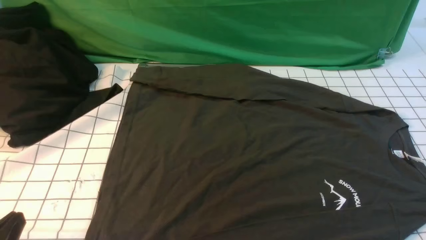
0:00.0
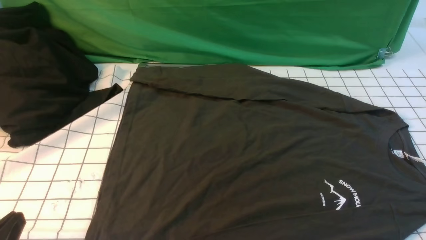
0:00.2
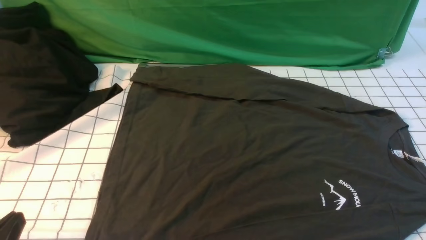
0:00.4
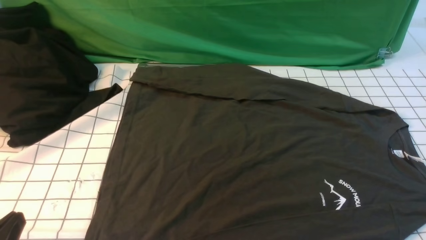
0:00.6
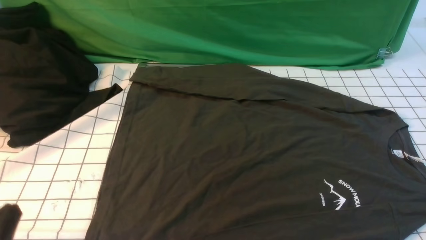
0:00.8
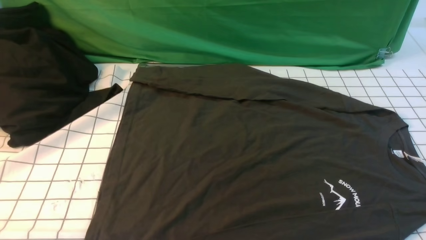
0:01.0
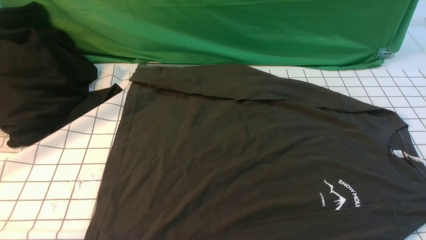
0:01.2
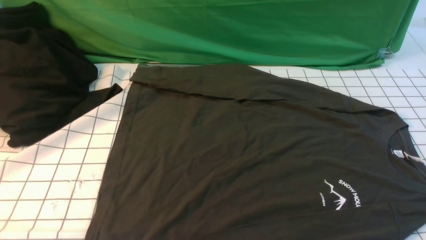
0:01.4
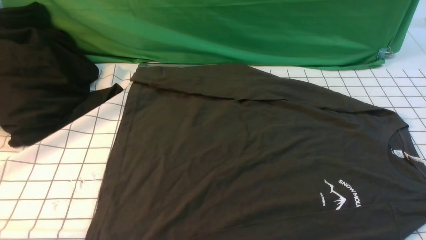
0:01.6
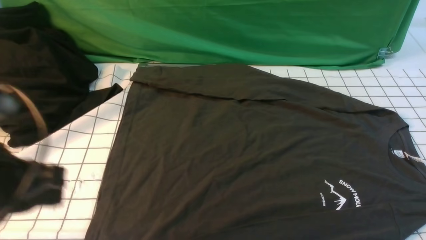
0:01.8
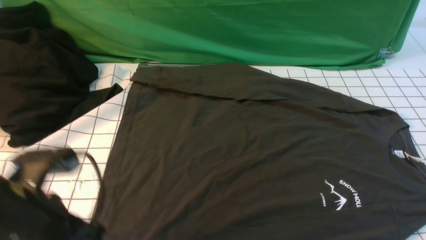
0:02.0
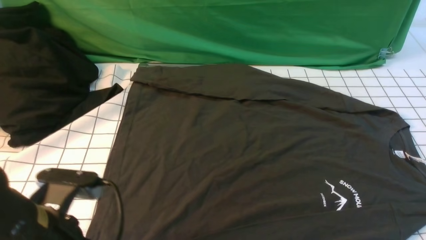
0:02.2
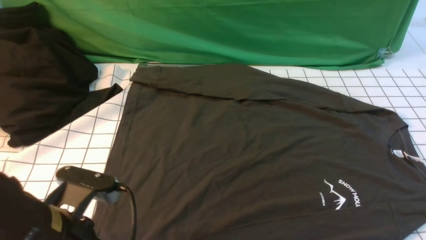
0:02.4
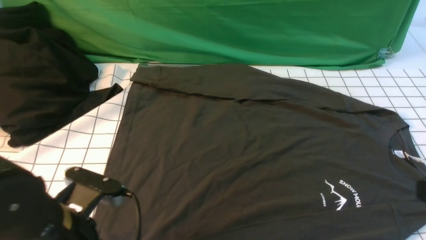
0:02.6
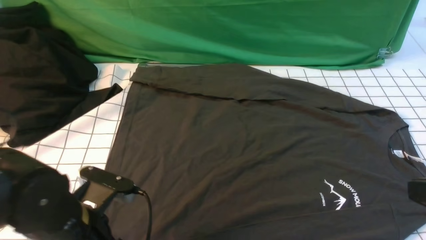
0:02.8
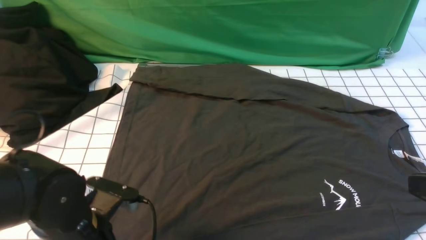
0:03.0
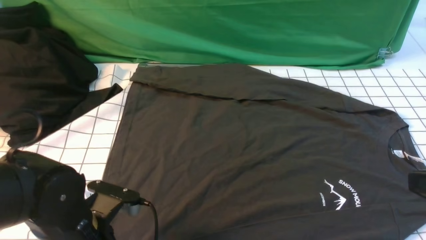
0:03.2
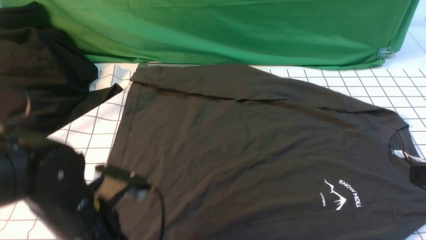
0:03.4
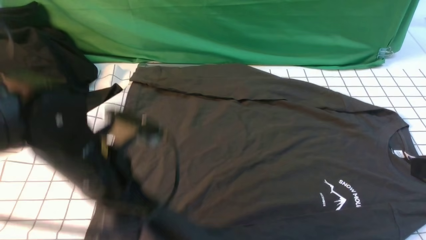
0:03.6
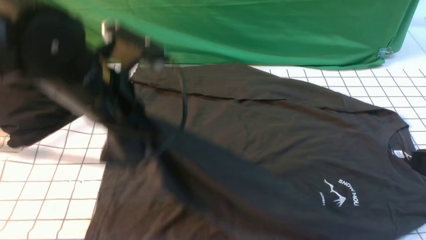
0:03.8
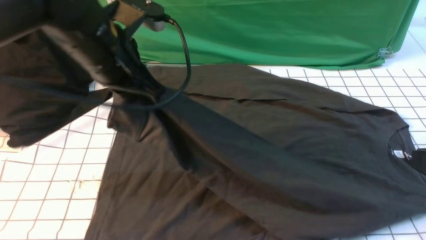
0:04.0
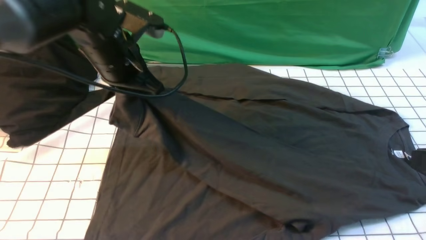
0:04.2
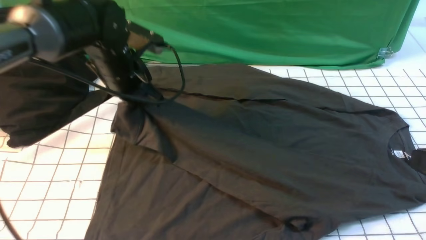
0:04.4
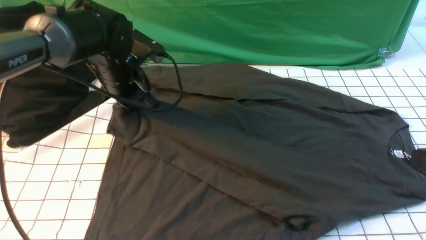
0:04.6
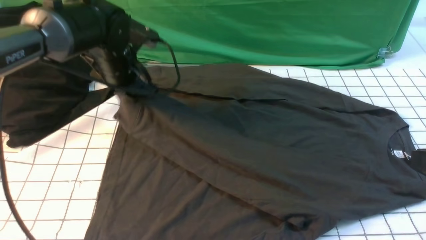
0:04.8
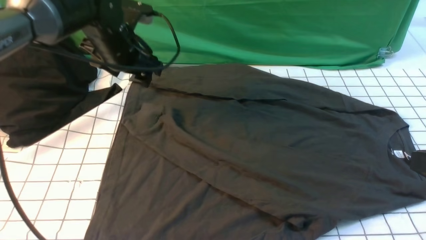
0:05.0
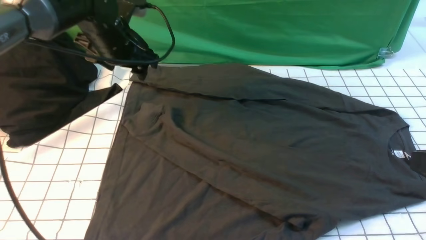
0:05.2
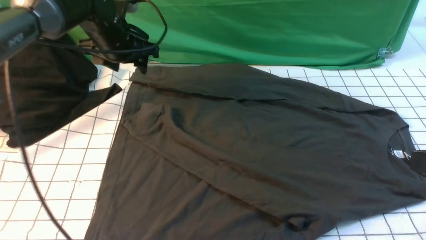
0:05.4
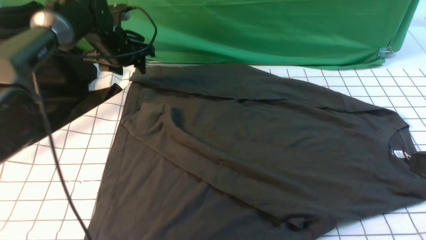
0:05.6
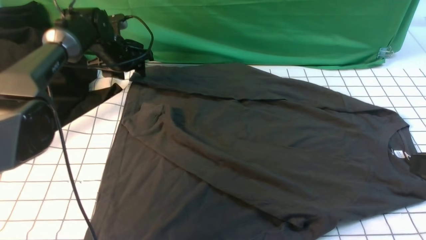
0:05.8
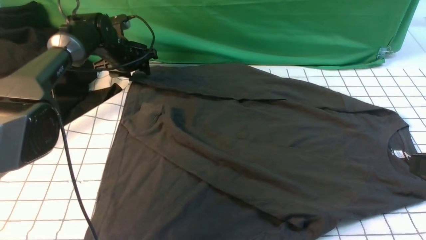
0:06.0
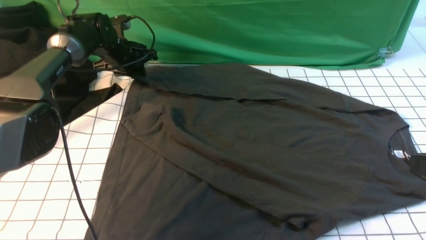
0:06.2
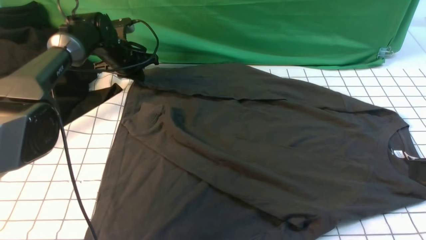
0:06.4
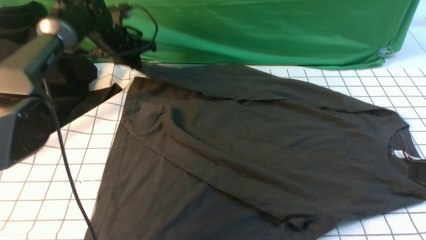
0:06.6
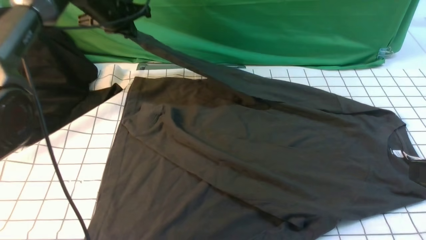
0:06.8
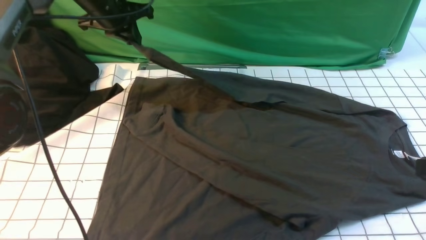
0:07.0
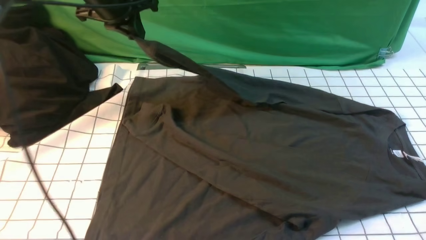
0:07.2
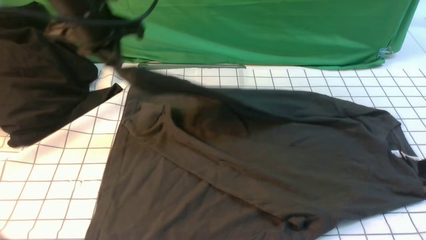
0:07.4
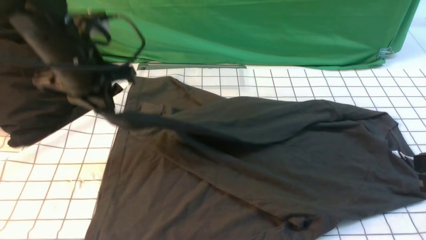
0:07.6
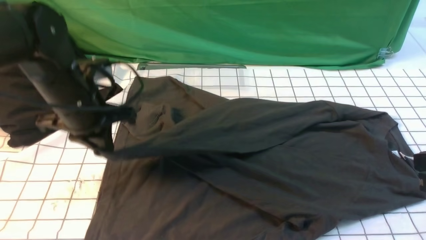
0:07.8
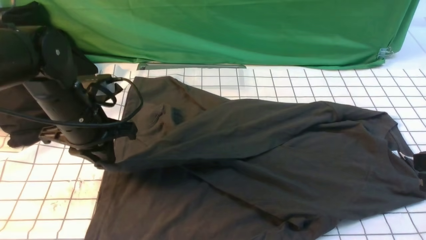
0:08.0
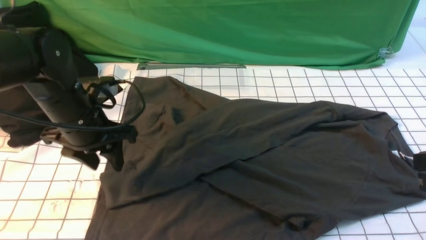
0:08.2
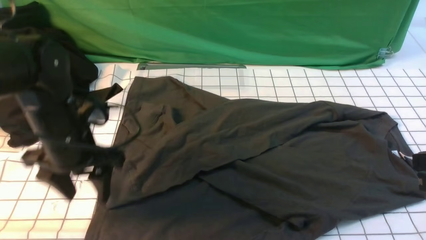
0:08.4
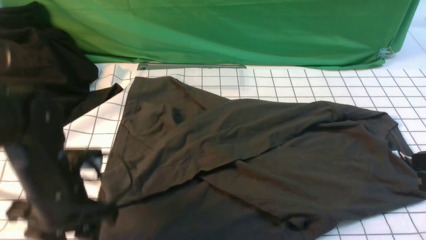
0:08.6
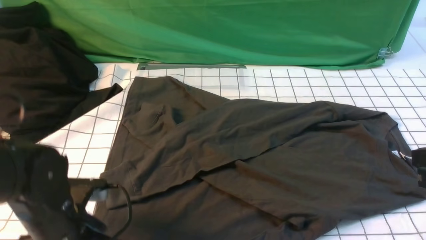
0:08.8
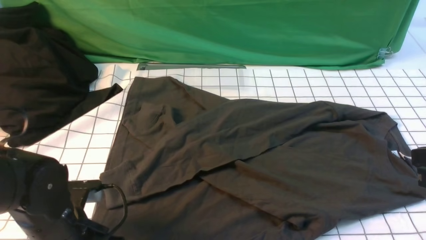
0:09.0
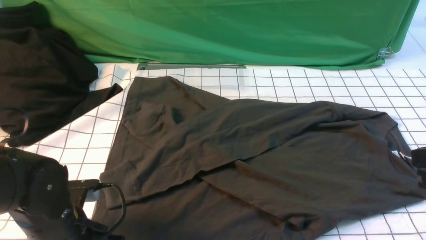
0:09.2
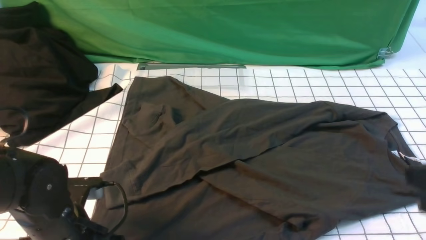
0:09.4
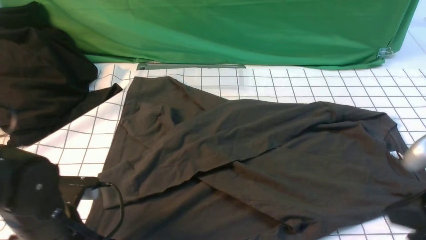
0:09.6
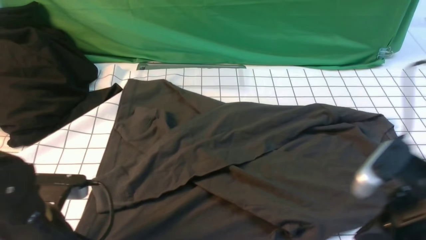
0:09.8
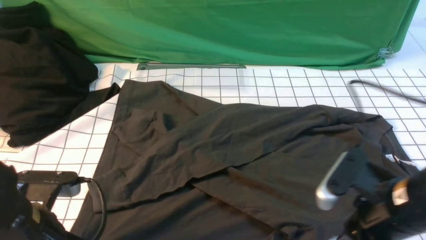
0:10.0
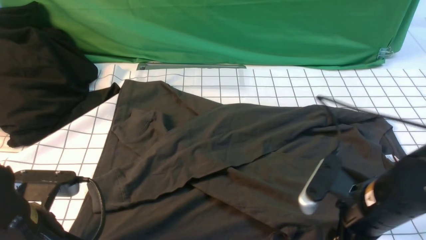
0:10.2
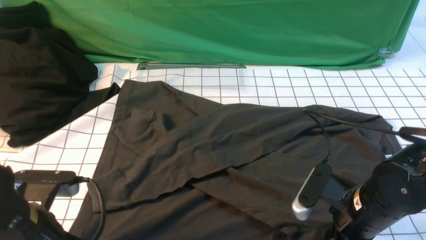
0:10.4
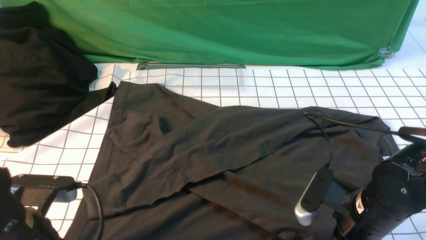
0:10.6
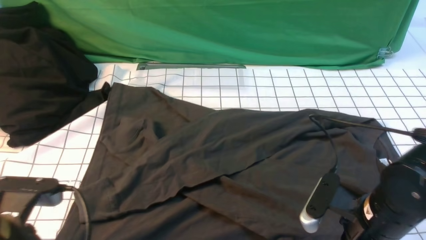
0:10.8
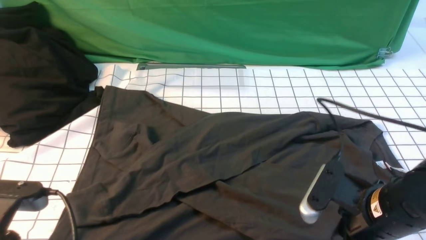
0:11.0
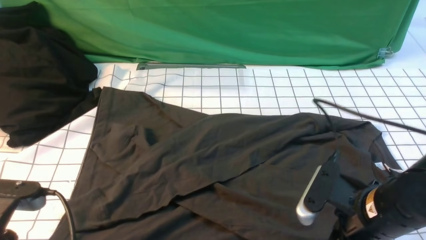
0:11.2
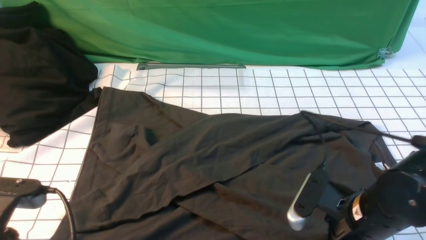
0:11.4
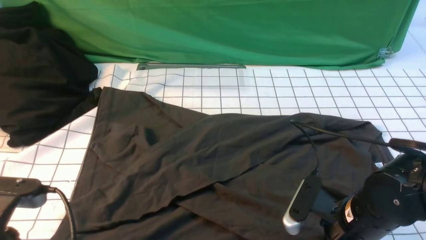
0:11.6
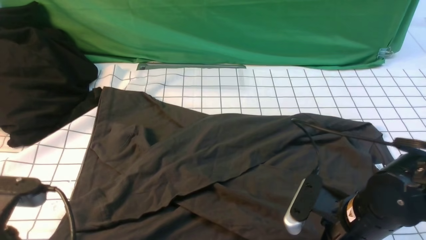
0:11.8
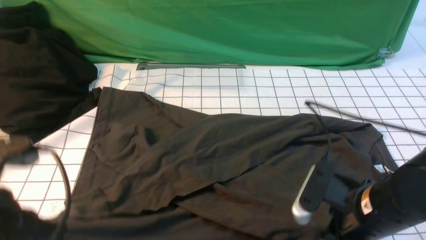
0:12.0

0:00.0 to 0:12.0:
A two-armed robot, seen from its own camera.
Step, 0:00.0 to 0:03.4: use the left arm to clamp the cuff closest to it.
Step, 0:03.6 to 0:05.0: use the left arm to drag and place the cuff at the centered position on the left edge of the fabric.
Step, 0:05.2 to 0:06.4: use the left arm to clamp the cuff farthest from it.
Step, 0:06.6 to 0:08.2: use the left arm to drag and drop the cuff onto the cuff closest to the left arm.
Step, 0:08.4 to 0:12.0: use both arms simultaneously to clamp the lower edge of the clothing fabric.
0:00.0 to 0:01.6: The left gripper moves upward, approximately 15 cm.
0:01.6 to 0:03.0: The right gripper travels upward and forward by about 10 cm, and closes up. Meanwhile the left gripper goes about 20 cm downward, to the right and forward, and opens its fingers.
0:03.0 to 0:04.4: The left gripper goes about 25 cm forward, and closes its fingers.
0:04.4 to 0:06.0: The left gripper heads forward and downward, covering roughly 15 cm, and opens.
0:06.0 to 0:07.6: The left gripper heads backward and upward, covering approximately 25 cm, and closes its fingers.
0:07.6 to 0:09.0: The left gripper travels backward and downward by approximately 20 cm, and opens.
0:09.0 to 0:10.4: The left gripper goes about 5 cm upward, and closes up. The right gripper travels downward and to the left by approximately 15 cm, and opens up.
0:10.4 to 0:12.0: The left gripper heads upward, covering approximately 10 cm. Meanwhile the right gripper closes its fingers.

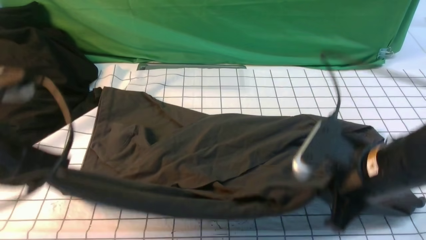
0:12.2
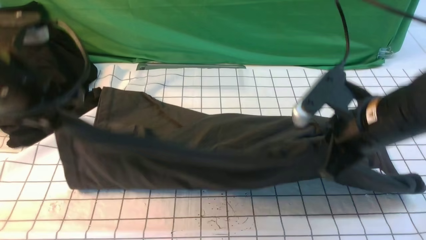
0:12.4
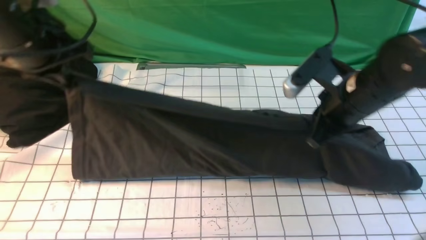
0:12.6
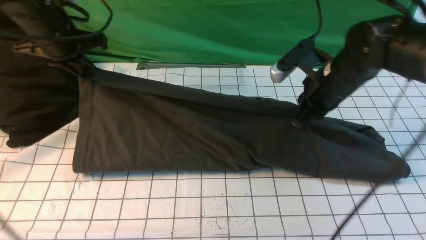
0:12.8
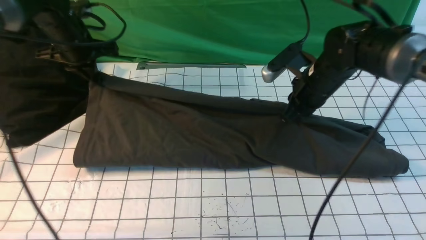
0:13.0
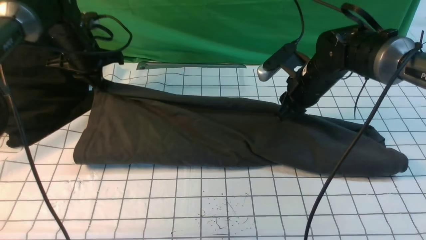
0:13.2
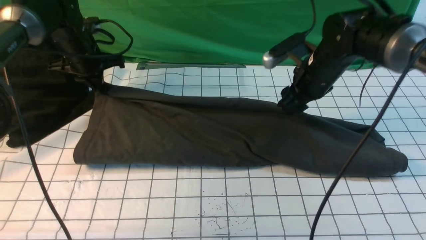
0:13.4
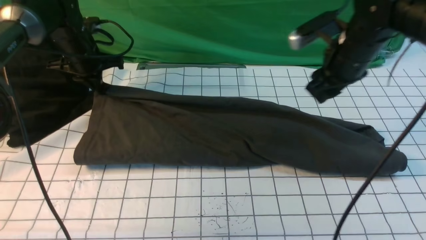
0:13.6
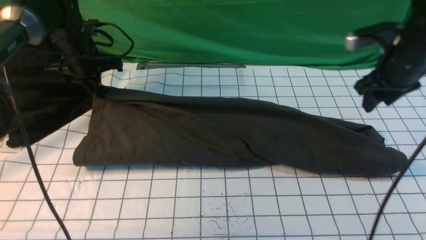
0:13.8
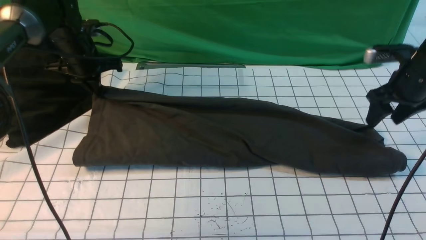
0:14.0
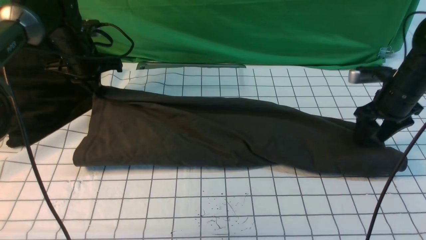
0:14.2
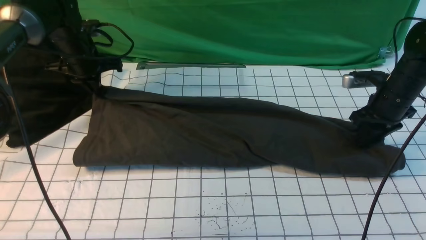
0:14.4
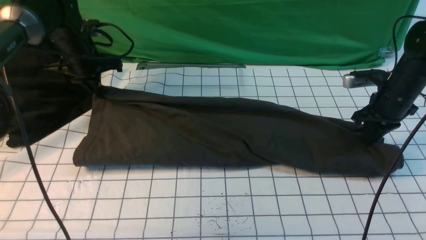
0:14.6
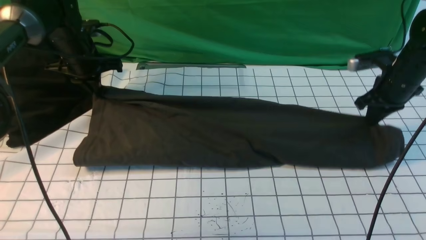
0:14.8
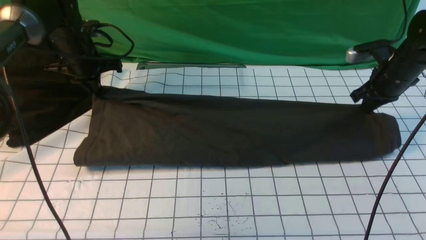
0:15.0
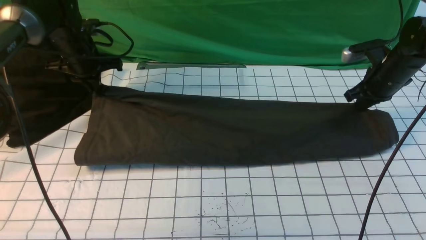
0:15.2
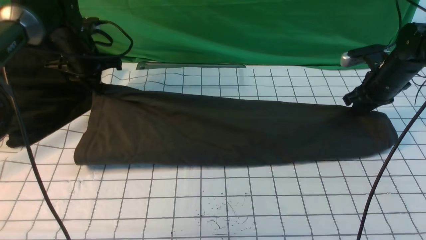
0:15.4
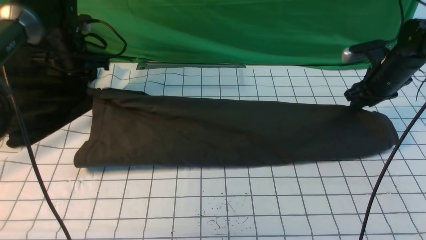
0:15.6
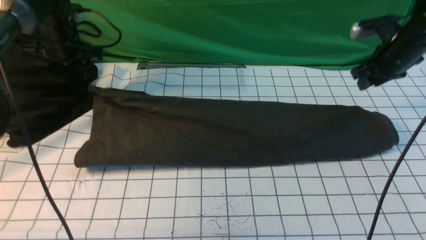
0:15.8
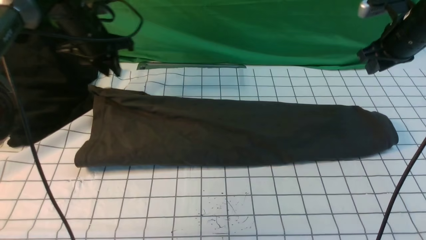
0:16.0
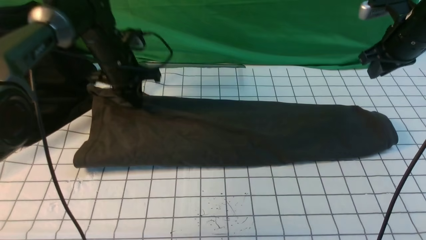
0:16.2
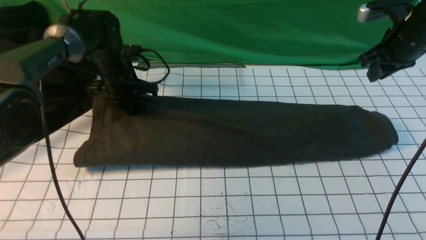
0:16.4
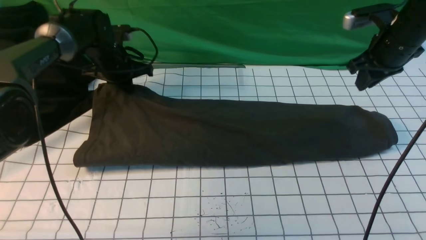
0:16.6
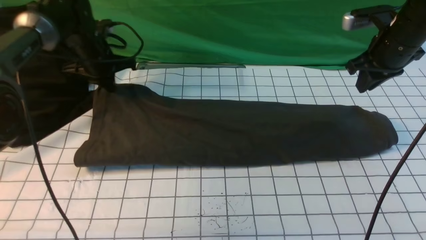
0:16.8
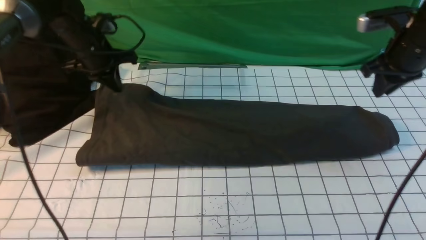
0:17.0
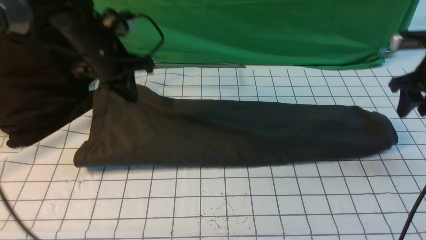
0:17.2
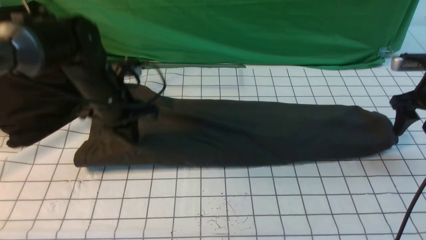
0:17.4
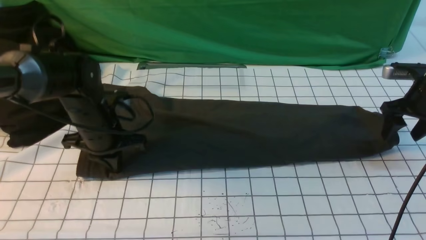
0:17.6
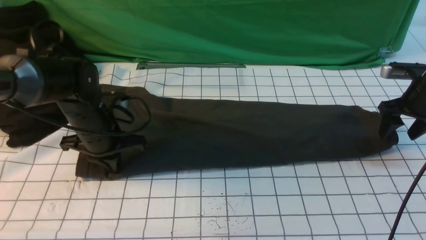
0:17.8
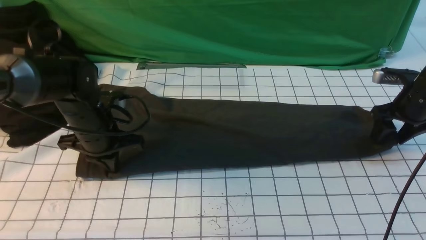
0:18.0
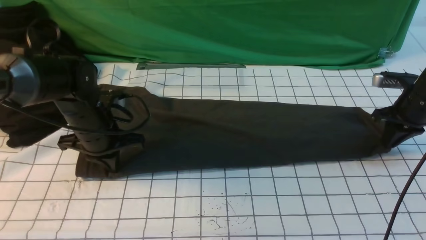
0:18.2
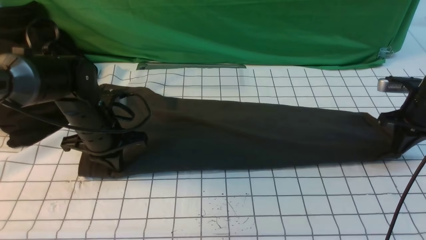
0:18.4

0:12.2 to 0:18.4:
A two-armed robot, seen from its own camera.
Step, 0:12.2 to 0:16.0: use both arms to drag the lower edge of the fabric forward and fold it over the upper edge.
0:12.2 to 0:13.8: The left gripper is displaced forward by roughly 30 cm, while the right gripper goes approximately 20 cm forward and to the right, and opens.
0:13.8 to 0:15.4: The right gripper travels downward and forward by some 10 cm, and closes its fingers.
0:15.4 to 0:16.8: The left gripper closes up, while the right gripper goes about 10 cm upward.
0:16.8 to 0:18.4: The left gripper moves backward, approximately 15 cm. The right gripper is displaced downward and to the right by approximately 15 cm, and opens and closes again.
